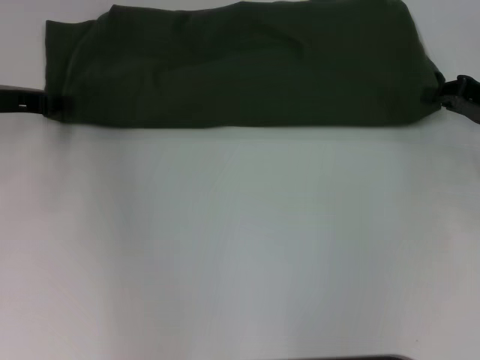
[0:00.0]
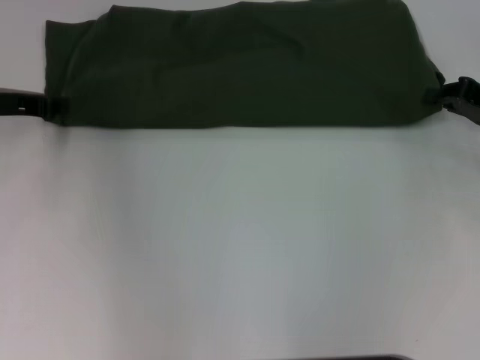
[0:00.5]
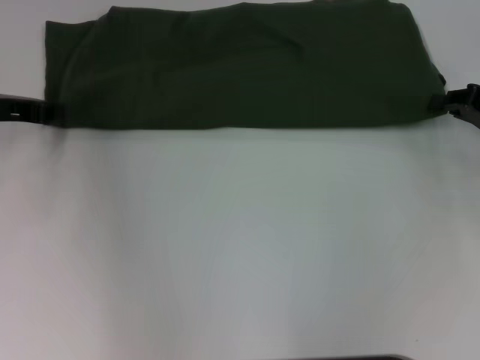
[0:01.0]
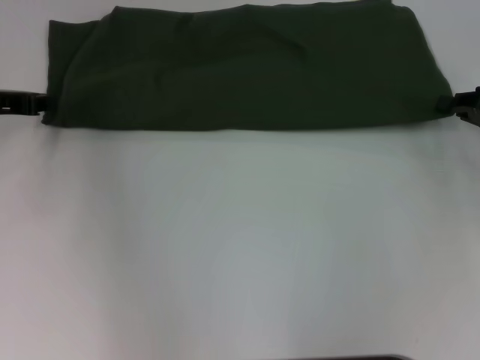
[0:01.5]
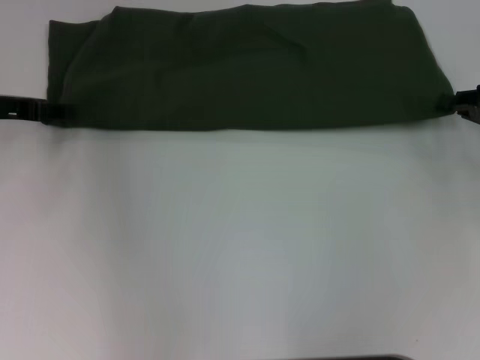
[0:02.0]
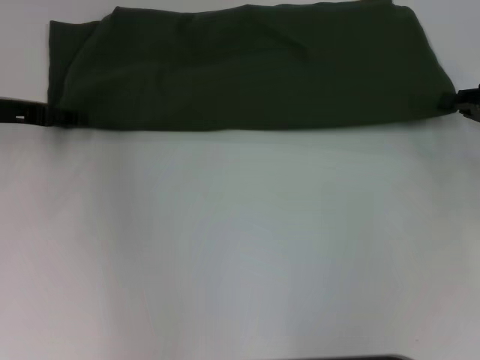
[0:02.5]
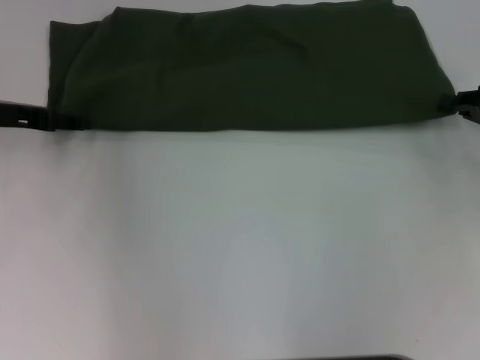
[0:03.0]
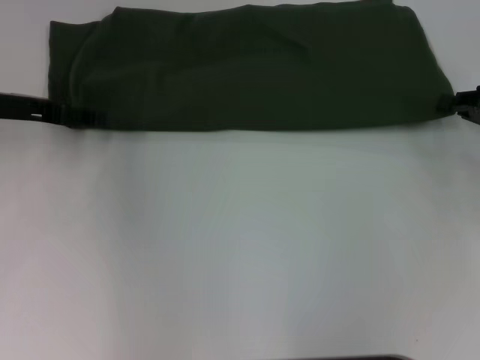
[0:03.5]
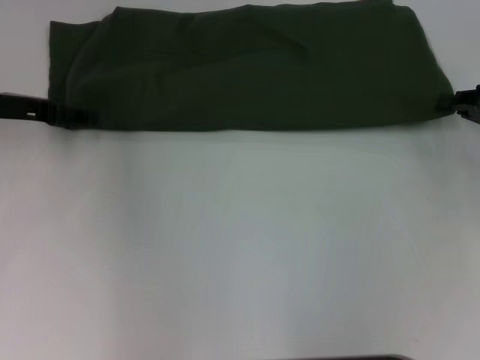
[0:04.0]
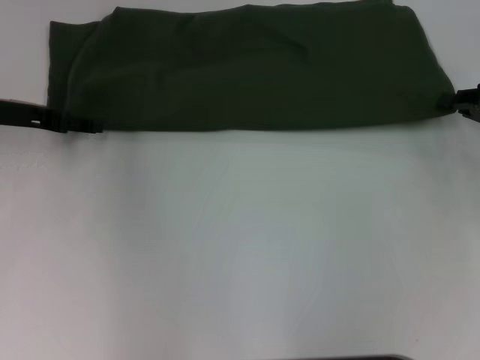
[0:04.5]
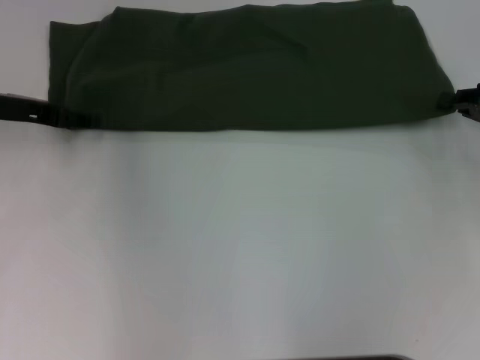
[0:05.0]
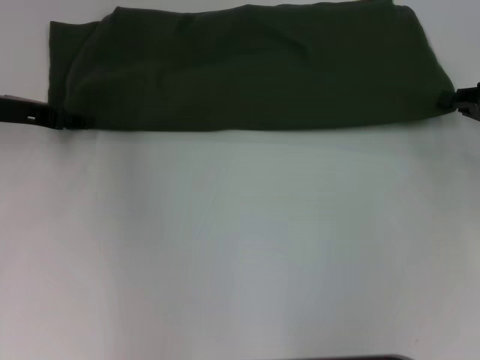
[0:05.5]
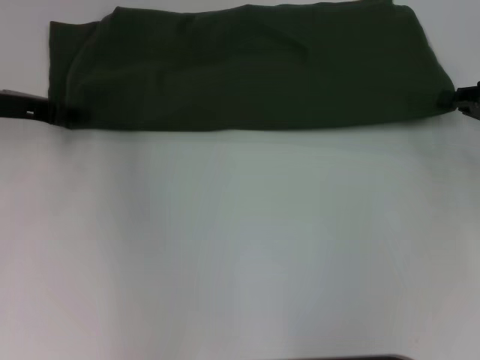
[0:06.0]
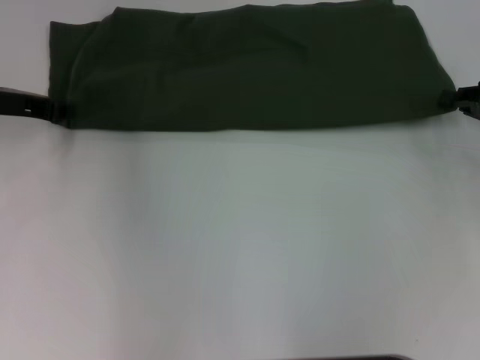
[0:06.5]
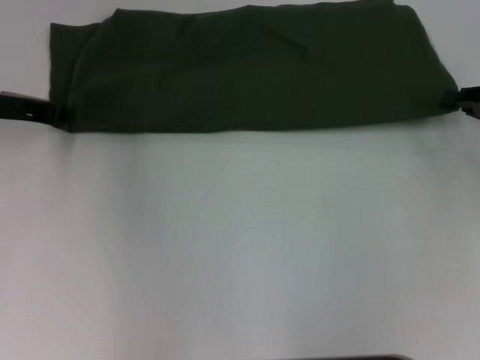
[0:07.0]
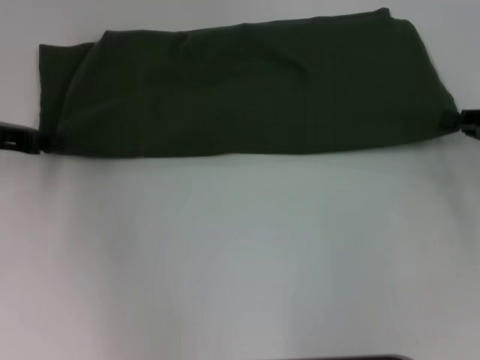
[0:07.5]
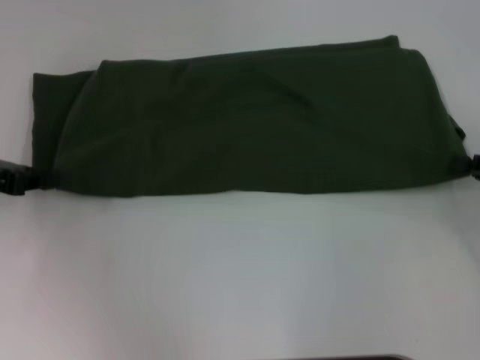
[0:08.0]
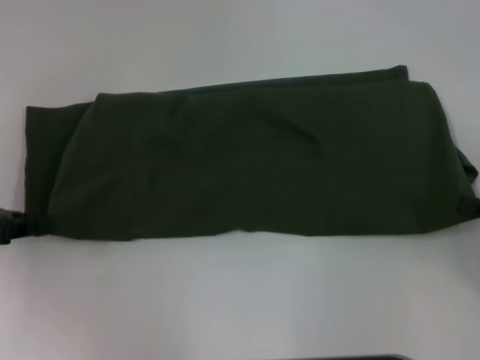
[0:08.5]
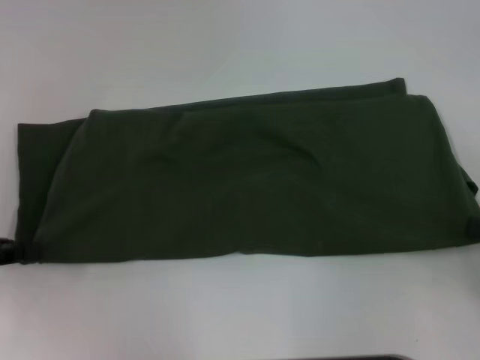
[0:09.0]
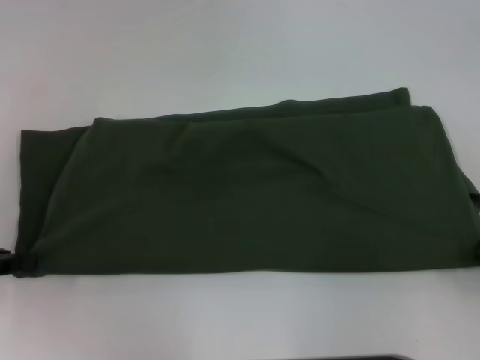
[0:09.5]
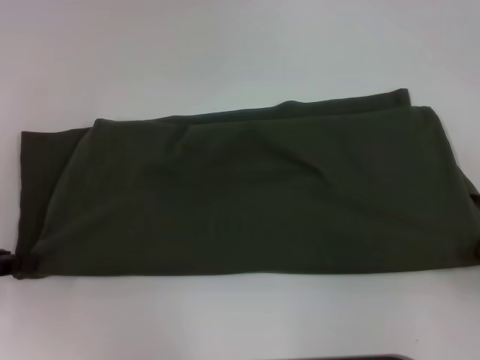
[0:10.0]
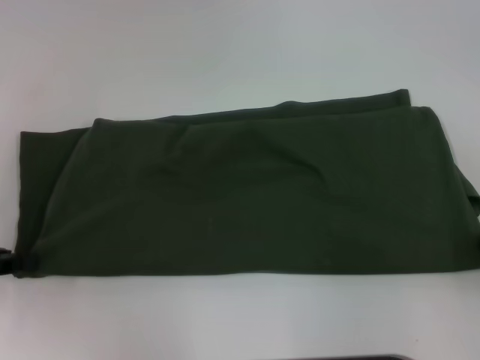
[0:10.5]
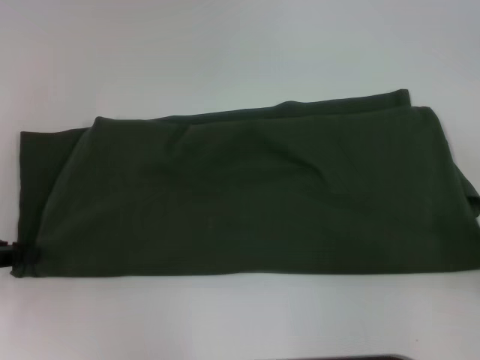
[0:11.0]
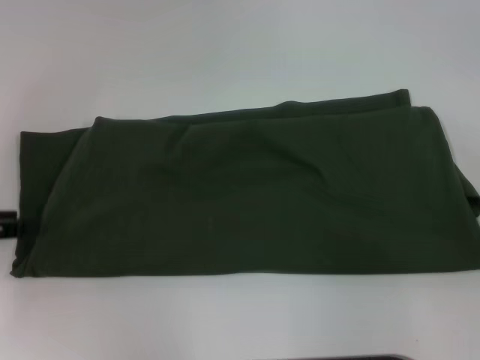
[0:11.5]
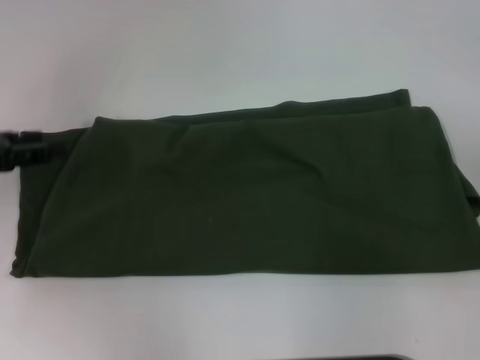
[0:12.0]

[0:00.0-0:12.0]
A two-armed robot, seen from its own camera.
Step, 0:00.0 to 0:10.0: Pull the clothes with your left hand.
Step, 0:00.0 to 0:10.0: Pull the clothes with your right hand.
0:00.0 to 0:02.0: The left gripper closes, then opens again.
0:04.0 to 0:06.0: Both grippers stay about where they are.
0:06.0 to 0:08.0: Both grippers move backward, some 10 cm. The left gripper closes its fingers.
0:08.0 to 0:10.0: Both grippers move backward, about 10 cm.
0:10.0 to 0:12.0: The left gripper is displaced forward by about 5 cm, and opens.

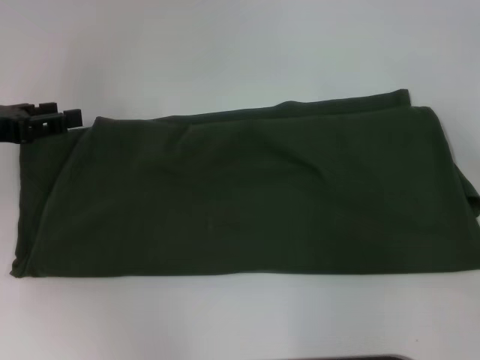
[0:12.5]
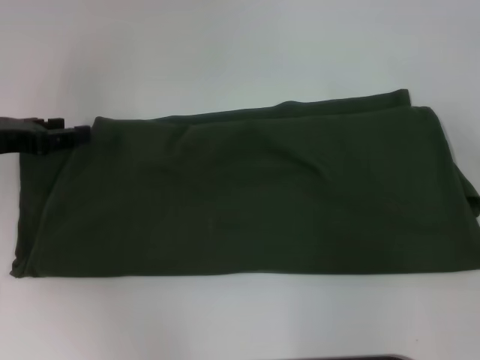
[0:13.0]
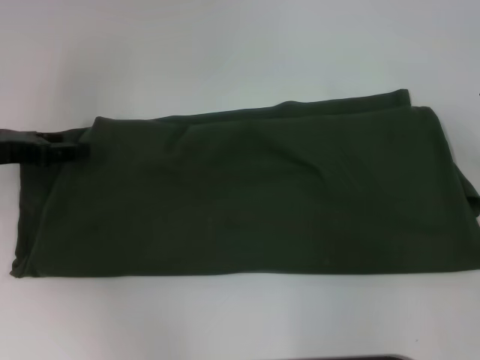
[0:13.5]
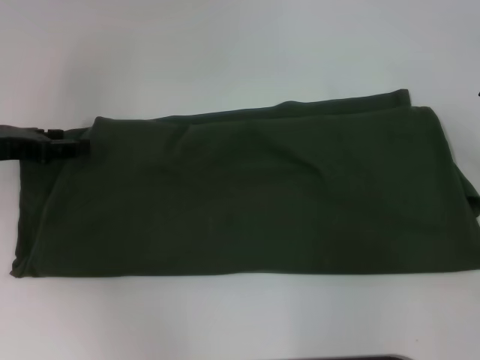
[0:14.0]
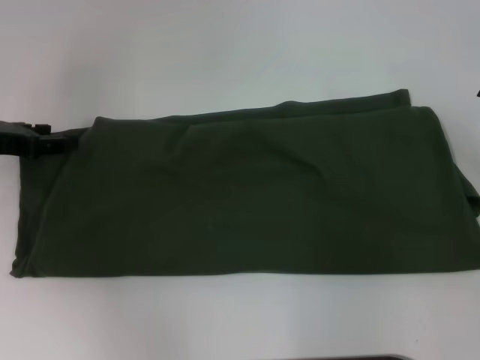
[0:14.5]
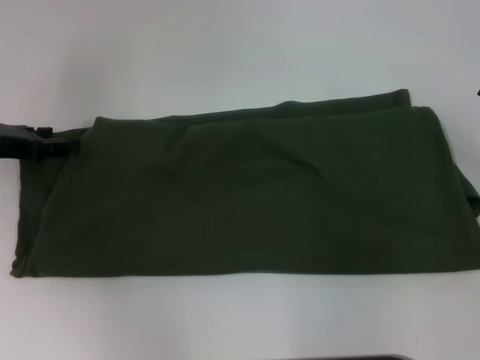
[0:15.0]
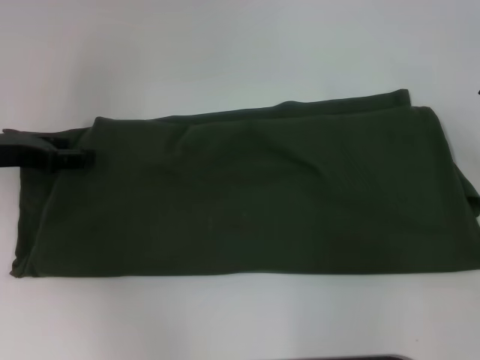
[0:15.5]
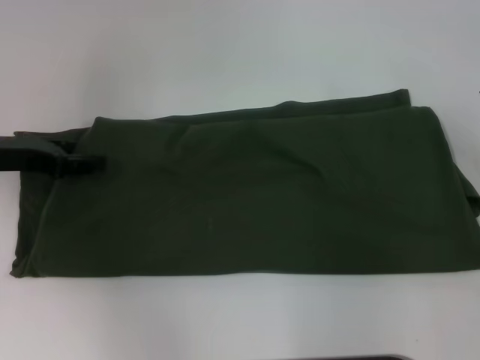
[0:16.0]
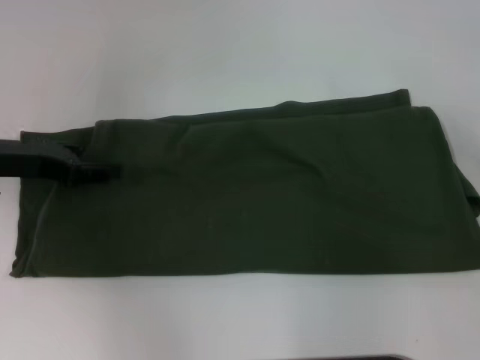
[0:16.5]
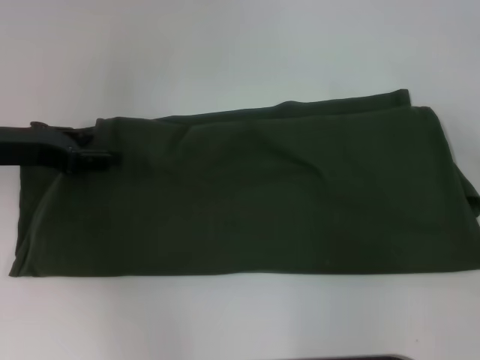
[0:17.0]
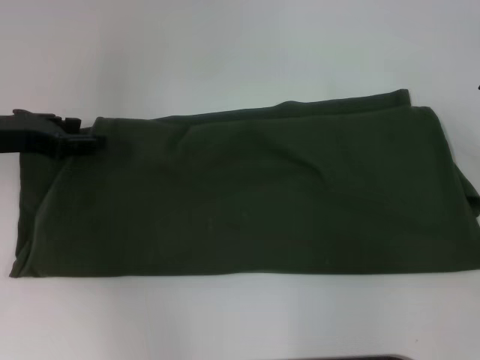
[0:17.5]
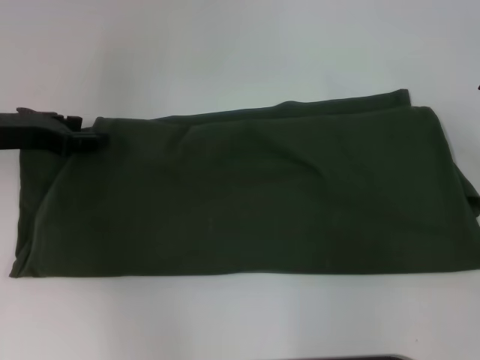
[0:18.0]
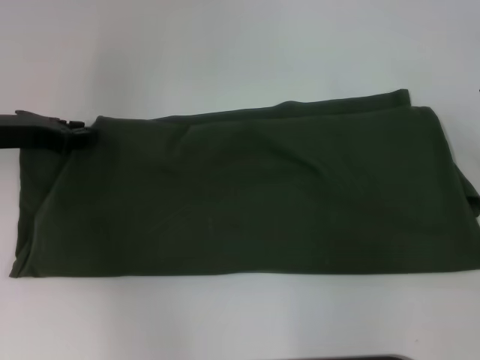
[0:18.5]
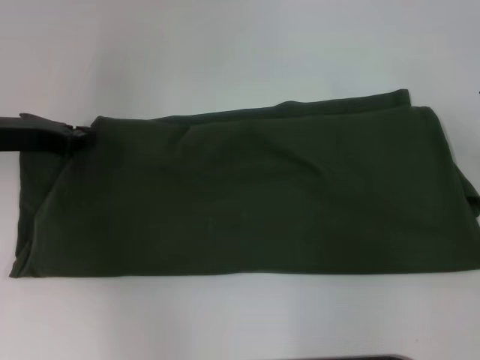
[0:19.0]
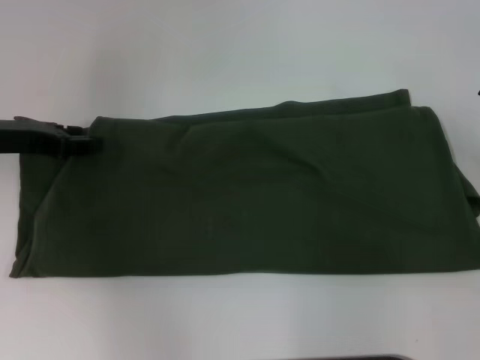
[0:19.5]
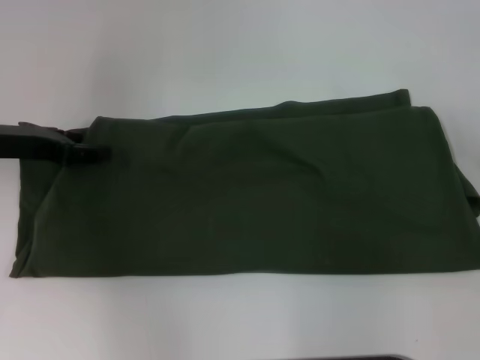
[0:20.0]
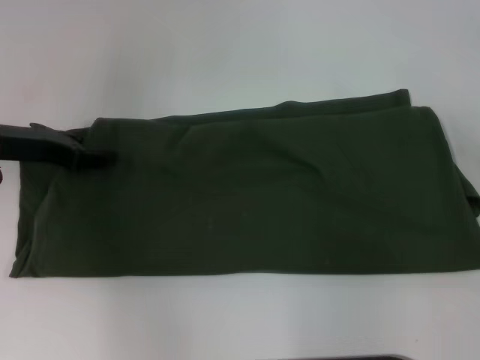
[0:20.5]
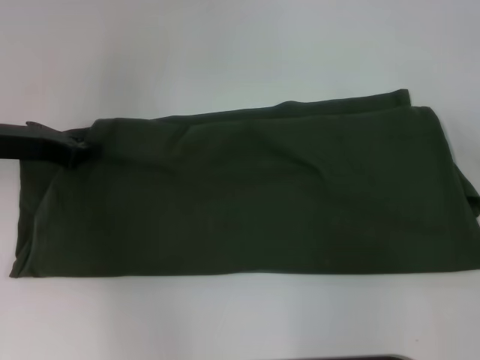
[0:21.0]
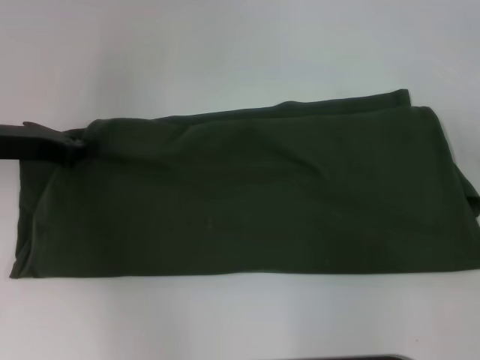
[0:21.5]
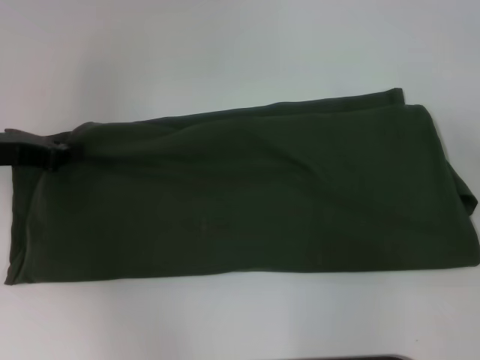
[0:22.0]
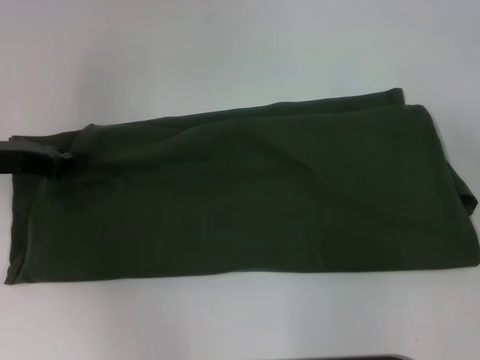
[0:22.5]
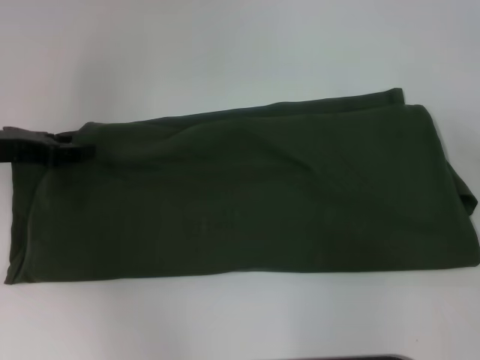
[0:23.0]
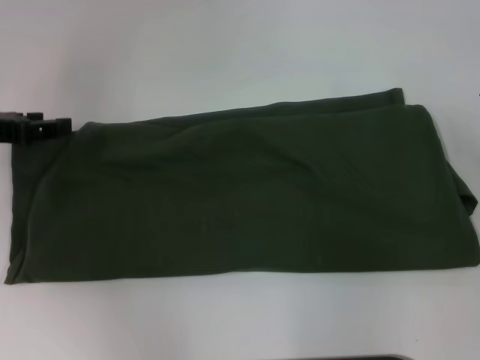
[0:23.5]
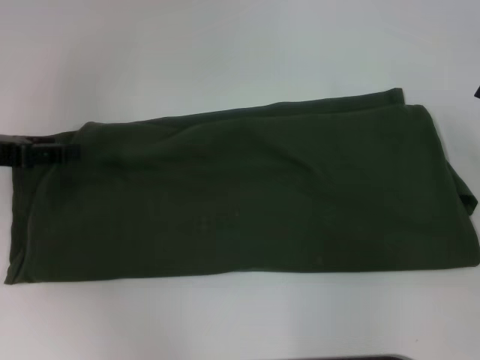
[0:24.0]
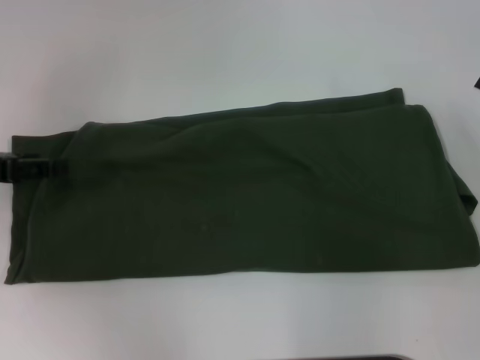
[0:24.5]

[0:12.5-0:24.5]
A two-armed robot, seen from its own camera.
0:12.5 to 0:20.5: The grippers move only a little.
0:20.5 to 0:22.5: The left gripper closes its fingers.

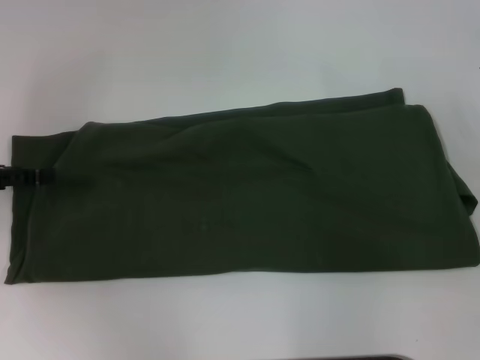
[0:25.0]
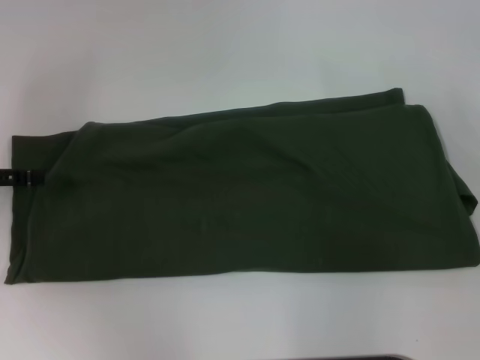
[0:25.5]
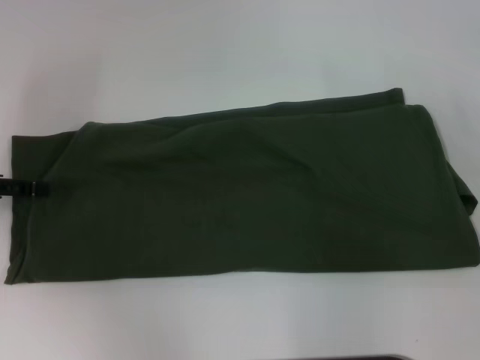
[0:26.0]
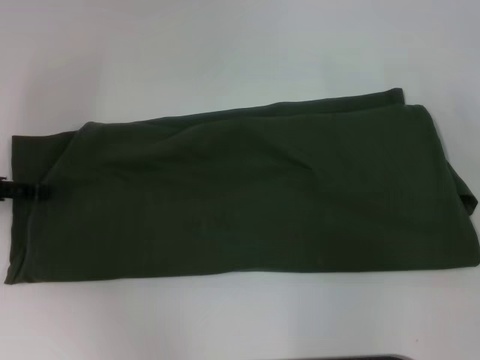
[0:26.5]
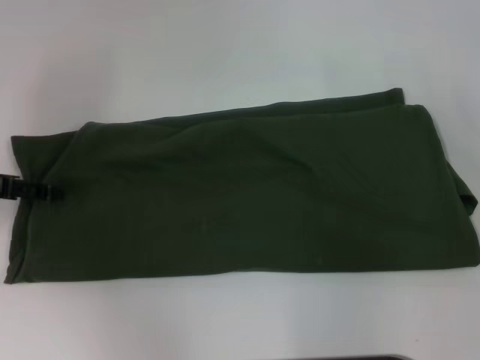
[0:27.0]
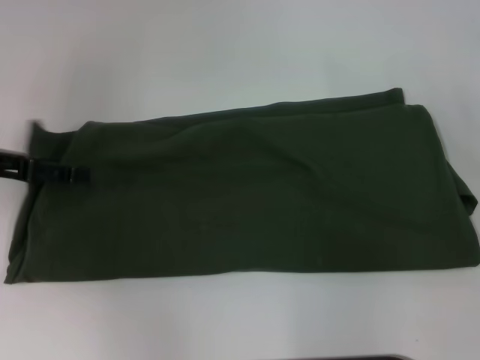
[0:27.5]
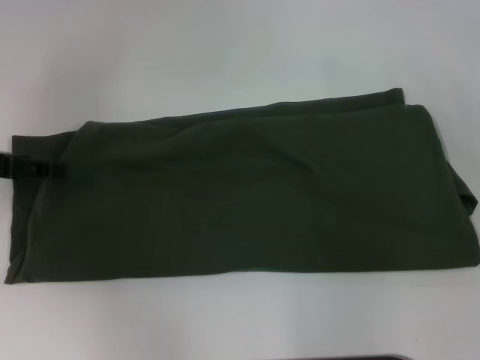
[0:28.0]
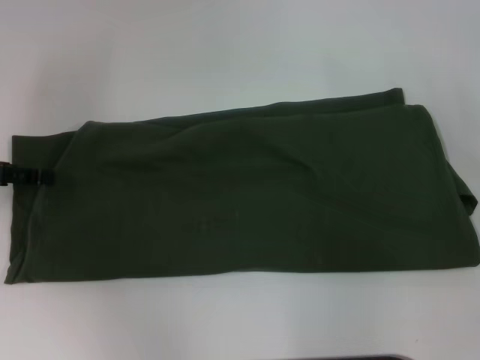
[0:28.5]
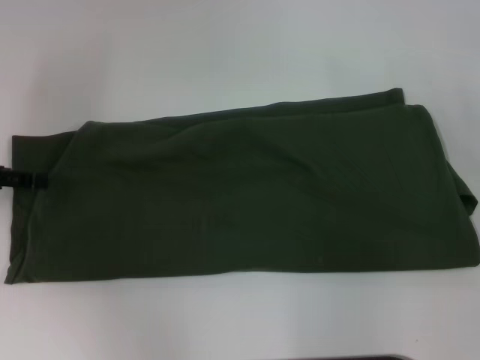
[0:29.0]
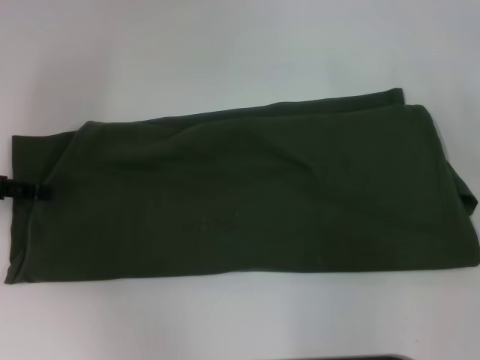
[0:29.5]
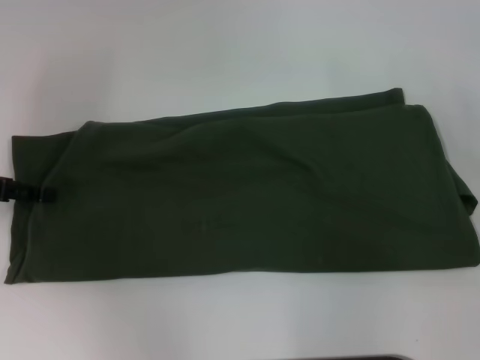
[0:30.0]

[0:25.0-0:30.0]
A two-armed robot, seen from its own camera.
0:25.0 to 0:30.0: The grippers stay close to where they were, moving slightly.
